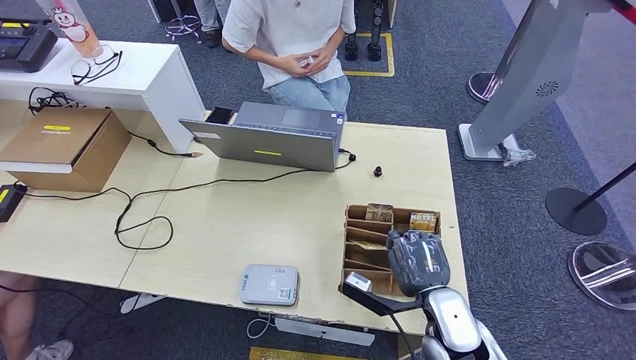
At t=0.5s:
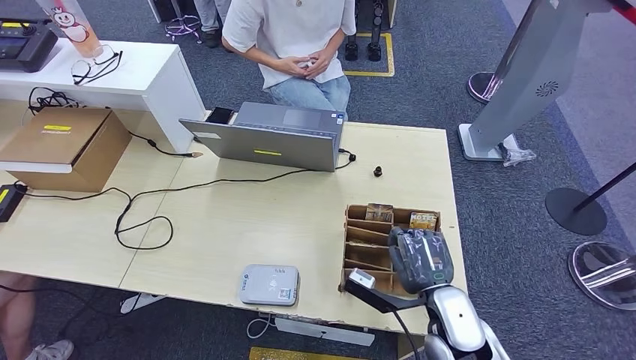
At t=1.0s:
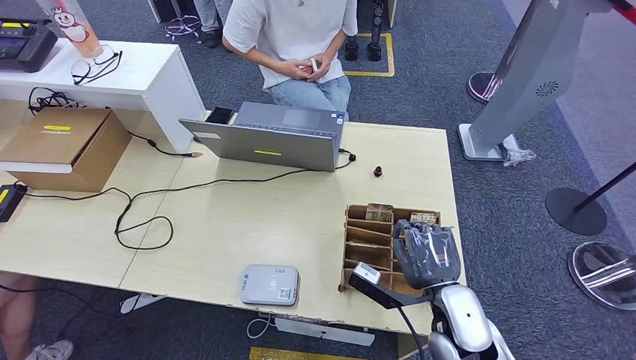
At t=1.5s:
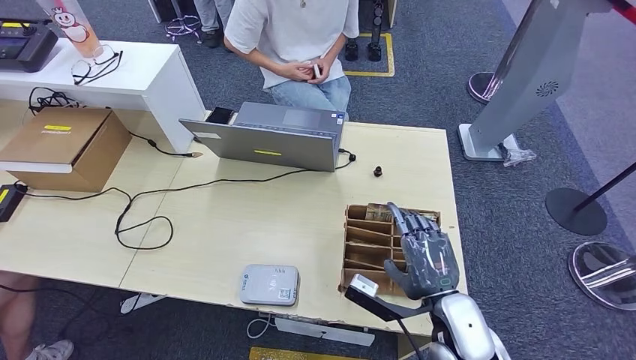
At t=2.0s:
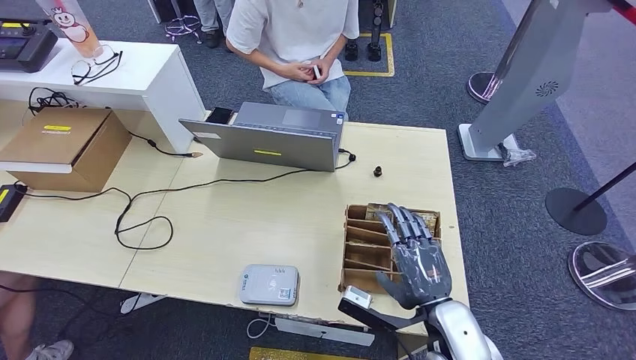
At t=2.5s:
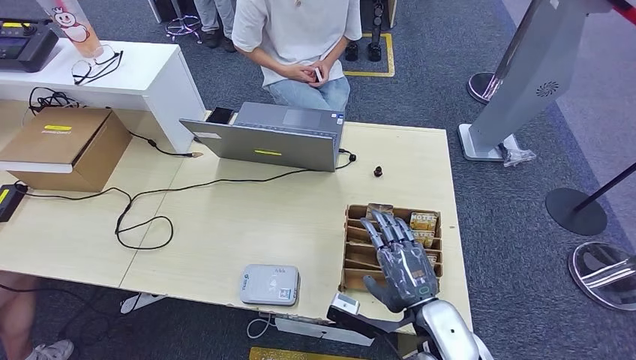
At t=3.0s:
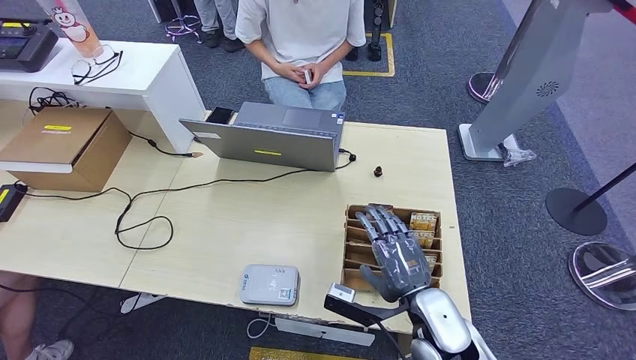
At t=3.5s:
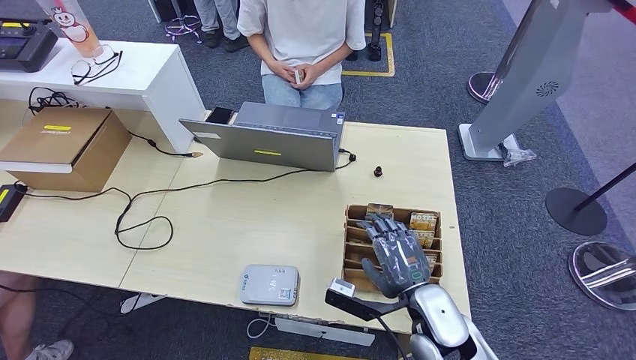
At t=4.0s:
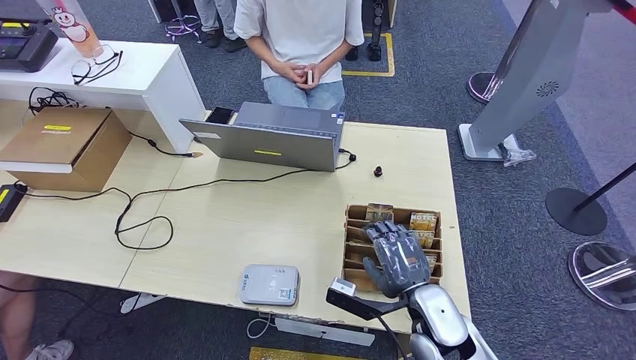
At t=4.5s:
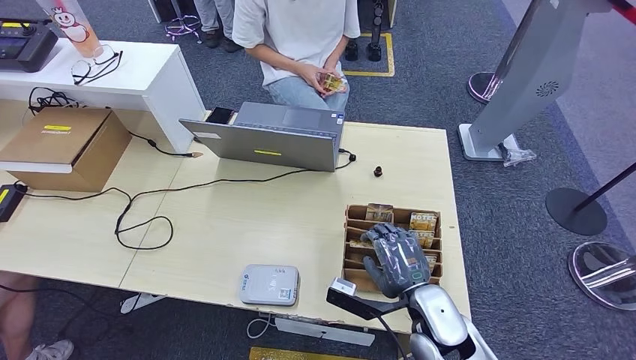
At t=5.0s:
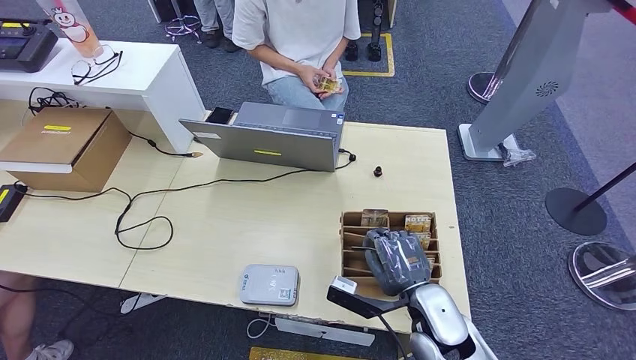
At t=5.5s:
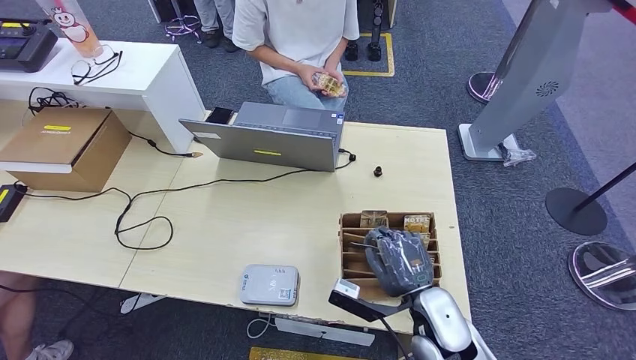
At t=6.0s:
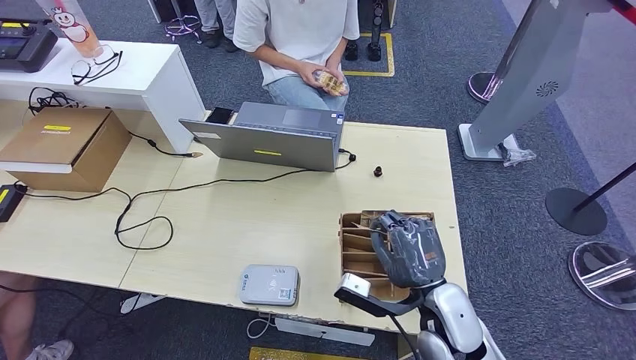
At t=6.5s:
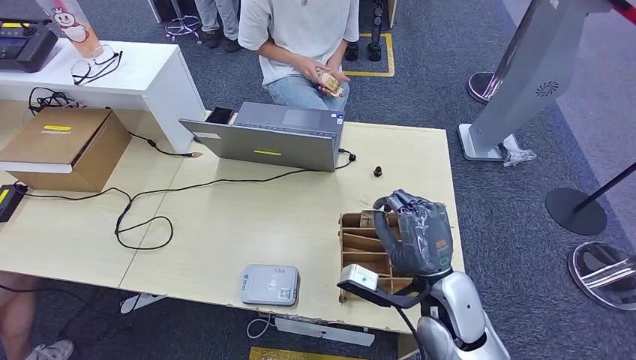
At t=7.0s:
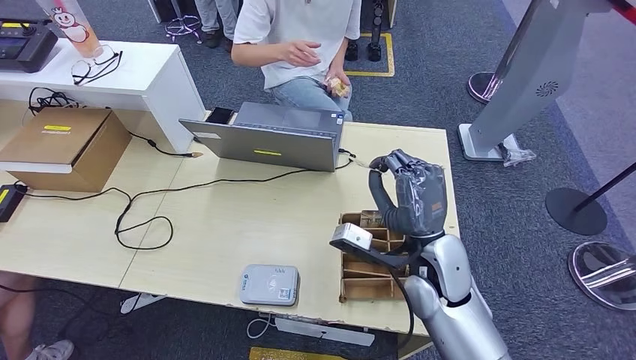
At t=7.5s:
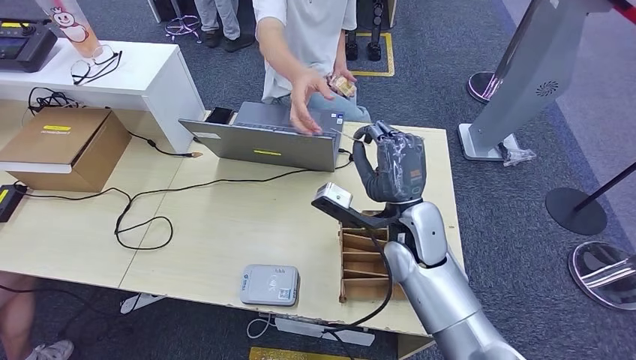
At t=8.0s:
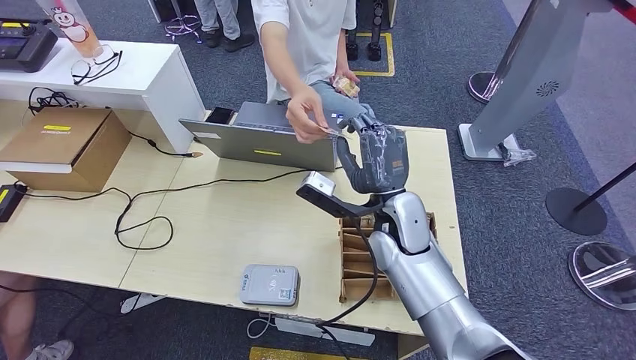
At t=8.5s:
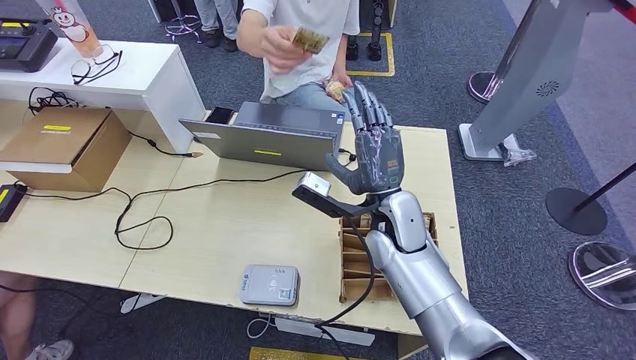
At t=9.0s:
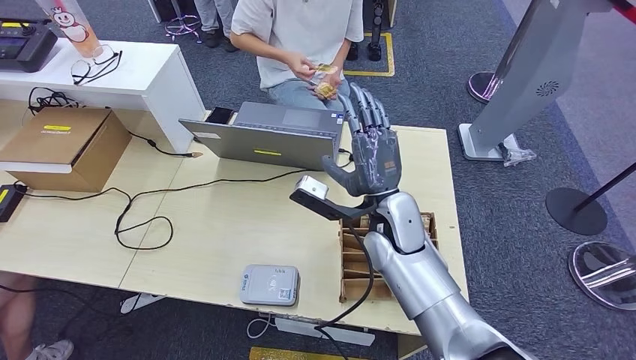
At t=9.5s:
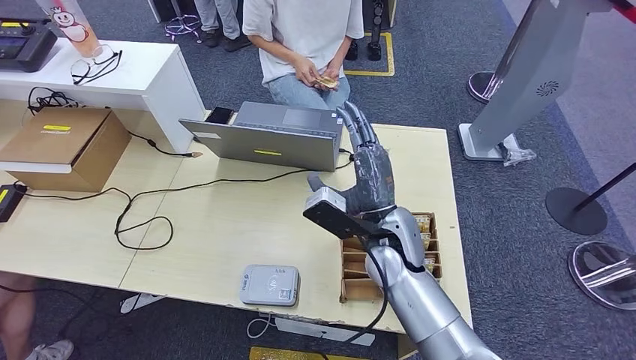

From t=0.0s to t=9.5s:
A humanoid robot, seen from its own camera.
Step, from t=0.0s to t=6.0s: Pick up the room key from the key card box.
Step, from t=6.5s to t=9.5s: Hand the room key to the person.
From t=0.0s to t=5.5s: There are only small adjustments of the hands.
From t=5.5s to t=7.5s: The right hand travels forward and upward by roughly 15 cm.
